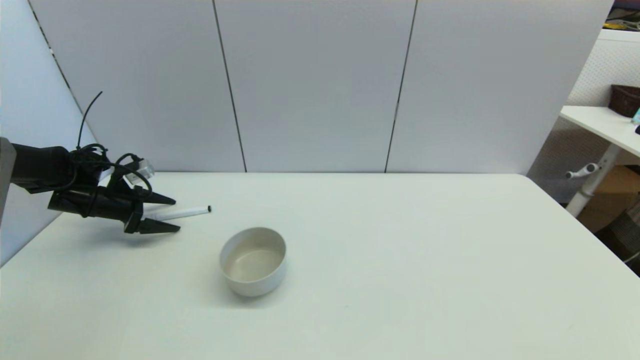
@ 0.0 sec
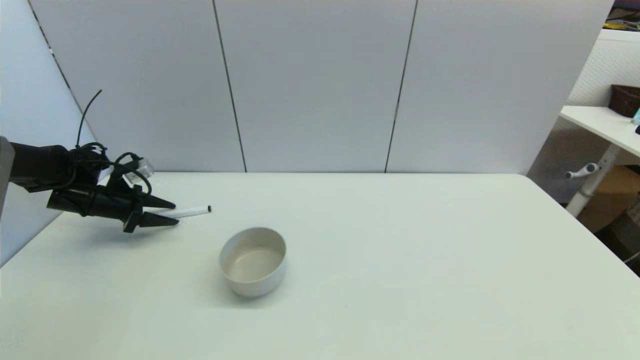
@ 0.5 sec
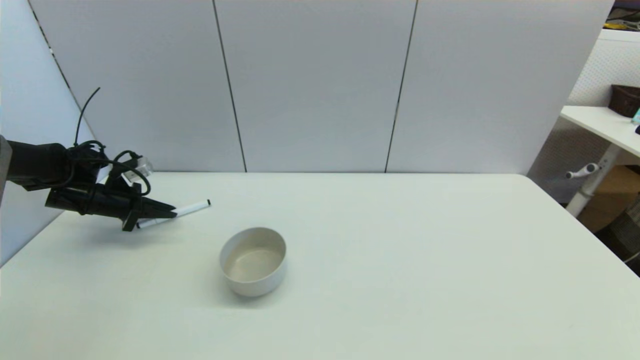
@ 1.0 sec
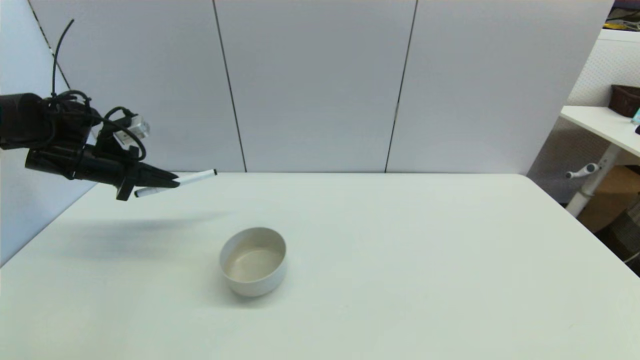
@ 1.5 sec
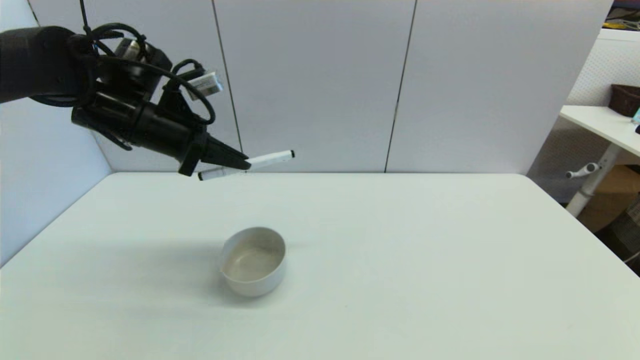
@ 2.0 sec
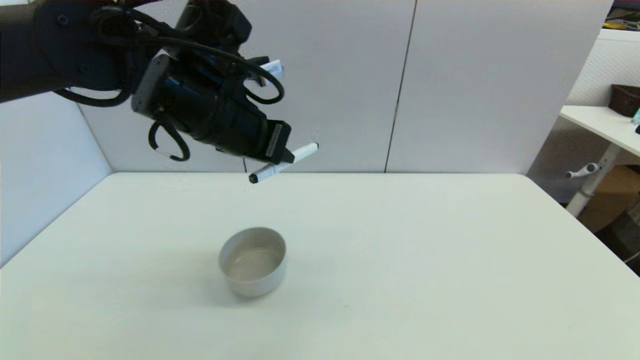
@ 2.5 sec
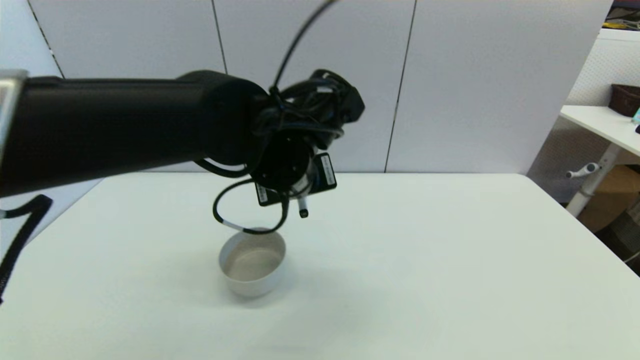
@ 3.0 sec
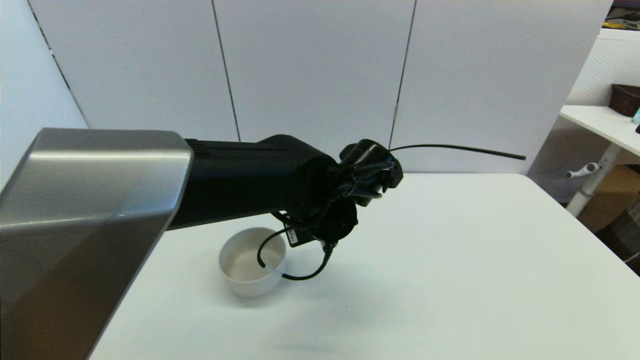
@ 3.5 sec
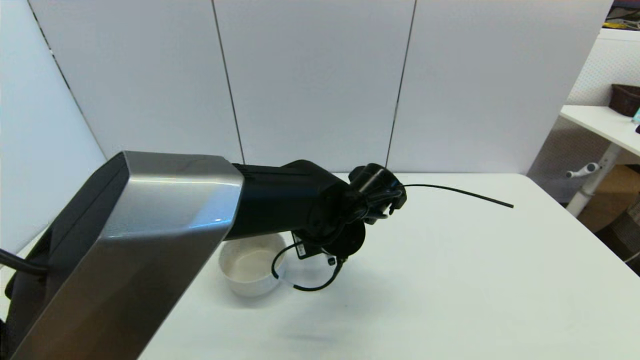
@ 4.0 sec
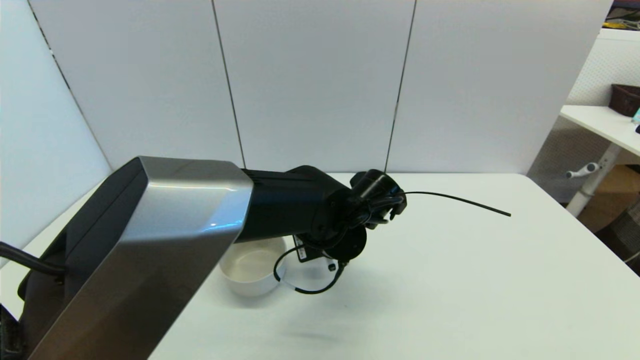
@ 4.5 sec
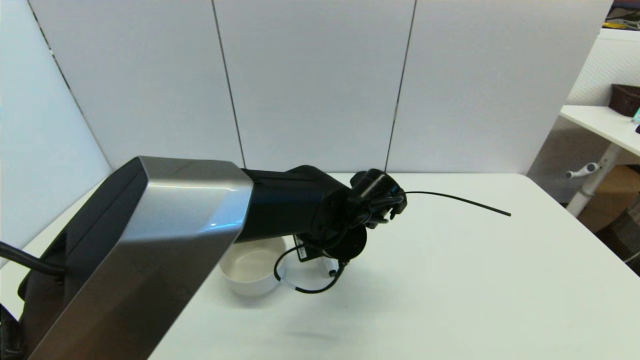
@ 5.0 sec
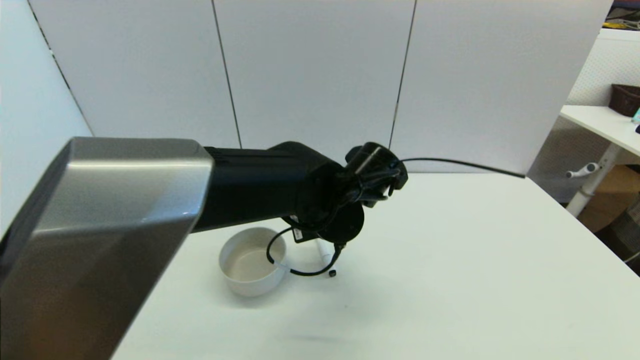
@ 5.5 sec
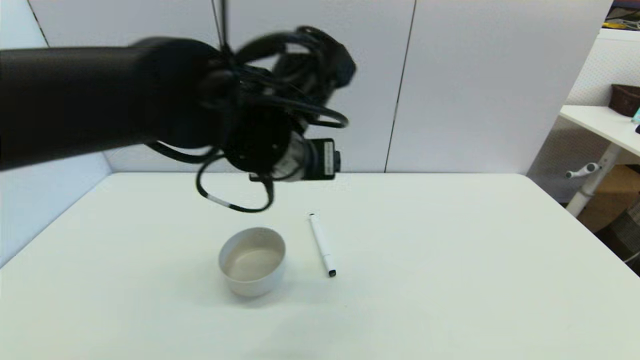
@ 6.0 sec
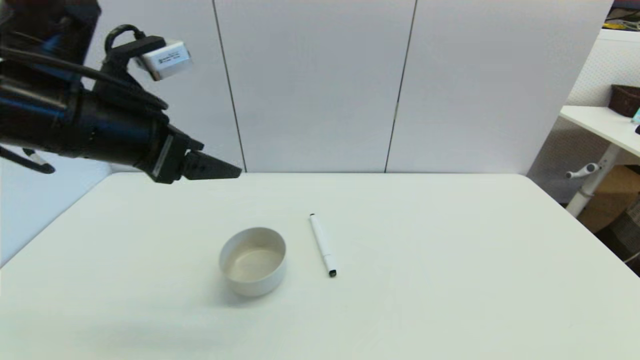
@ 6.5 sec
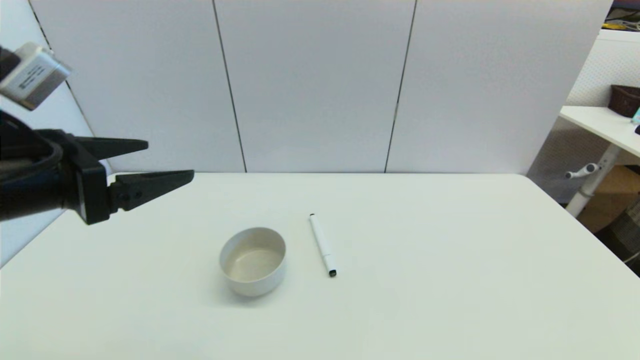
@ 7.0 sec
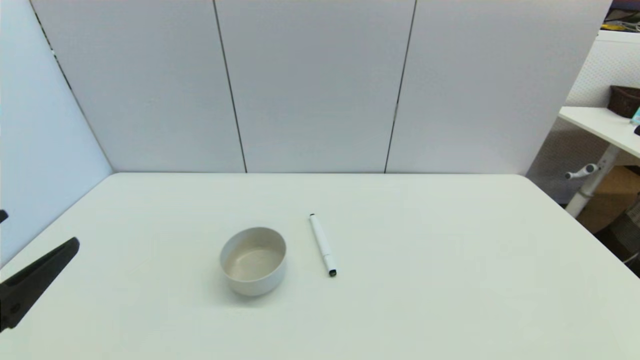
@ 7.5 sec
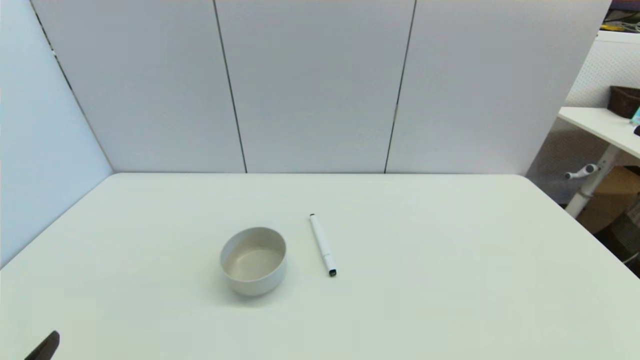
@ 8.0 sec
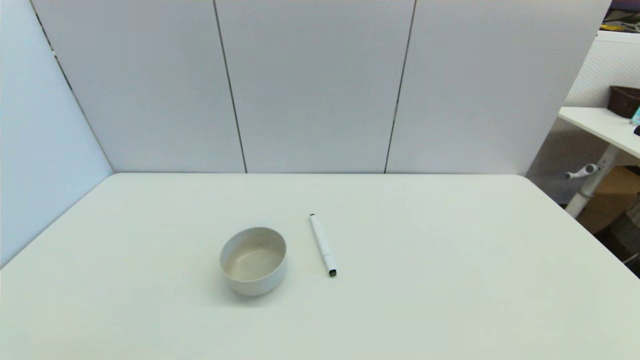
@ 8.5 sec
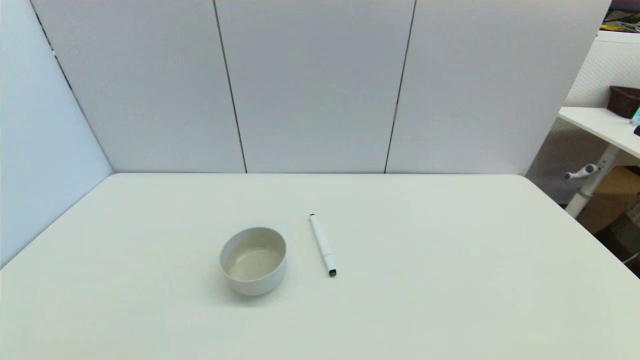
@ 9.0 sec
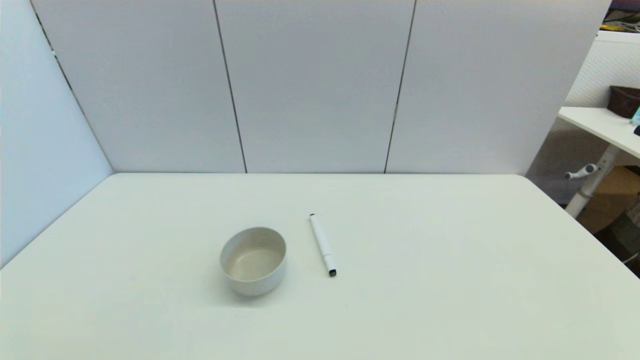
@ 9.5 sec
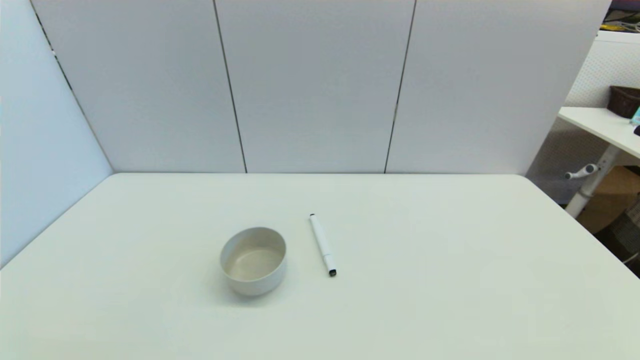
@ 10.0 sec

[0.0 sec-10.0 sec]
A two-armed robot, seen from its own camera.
Task of the whole recording: put the black marker in the designated position.
Step, 1.5 sec to 5.0 sec: Place the Marker pen on the table with left gripper.
0.0 sec to 2.0 sec: The left gripper shifts some 25 cm to the right and upward, and closes.
2.0 sec to 4.0 sec: The left gripper goes roughly 30 cm to the right and downward.
4.0 sec to 6.0 sec: The left gripper goes about 15 cm upward and to the left, and opens up.
6.0 sec to 8.0 sec: The left gripper travels to the left, backward and downward by approximately 40 cm.

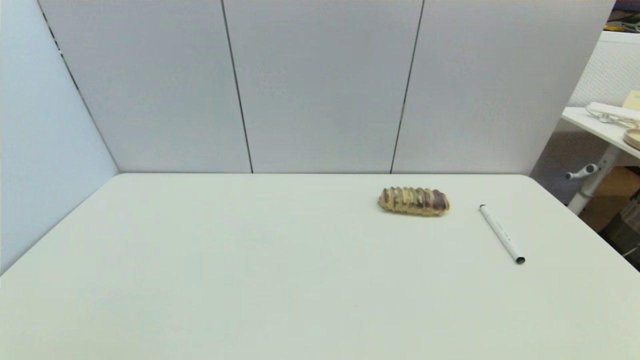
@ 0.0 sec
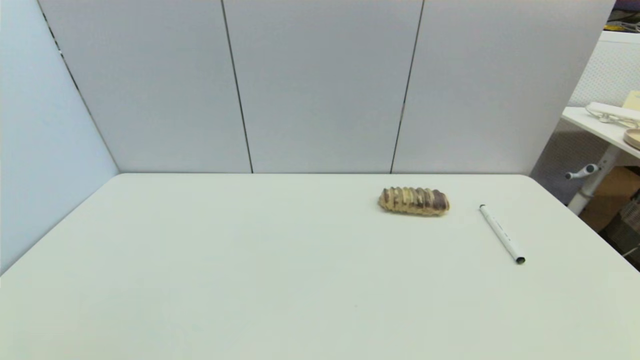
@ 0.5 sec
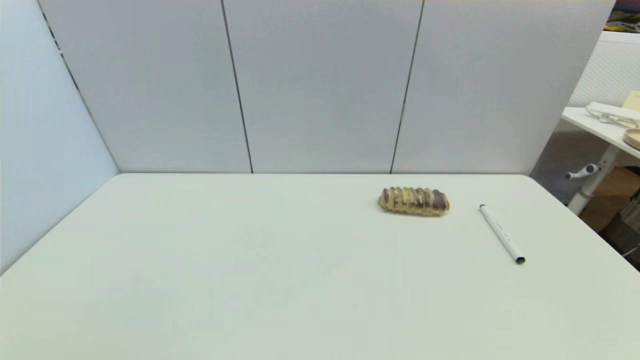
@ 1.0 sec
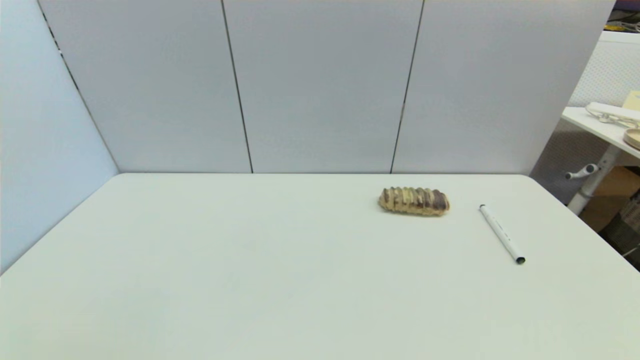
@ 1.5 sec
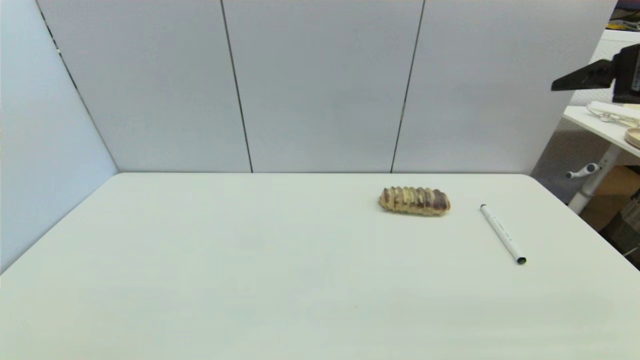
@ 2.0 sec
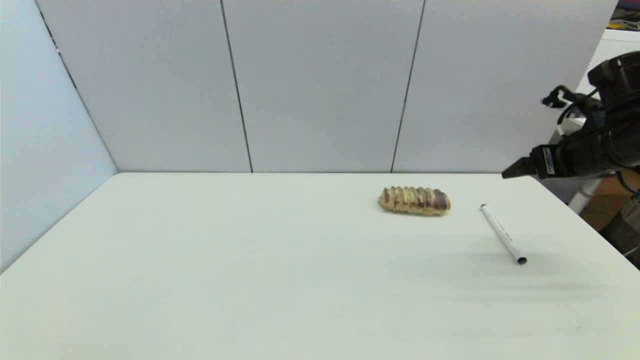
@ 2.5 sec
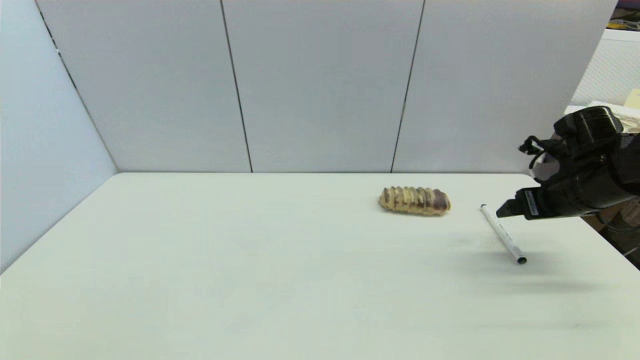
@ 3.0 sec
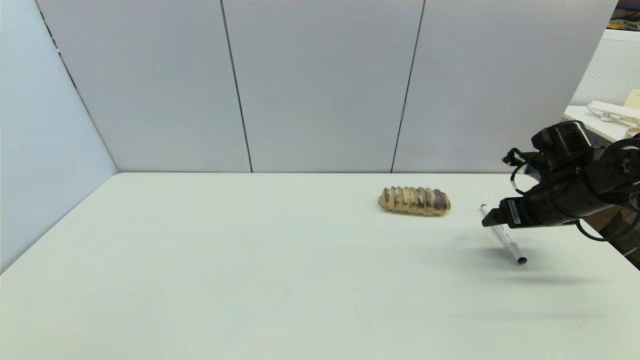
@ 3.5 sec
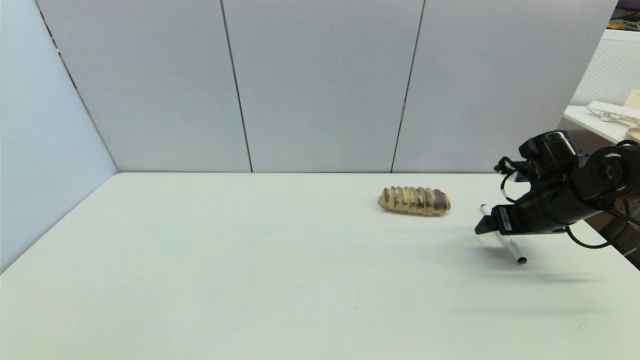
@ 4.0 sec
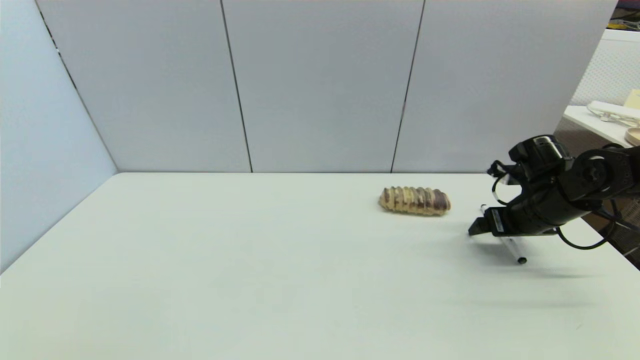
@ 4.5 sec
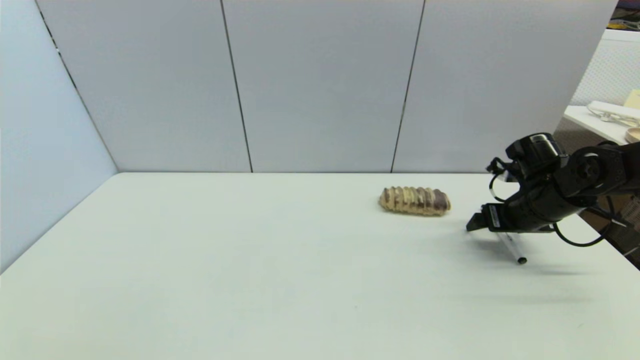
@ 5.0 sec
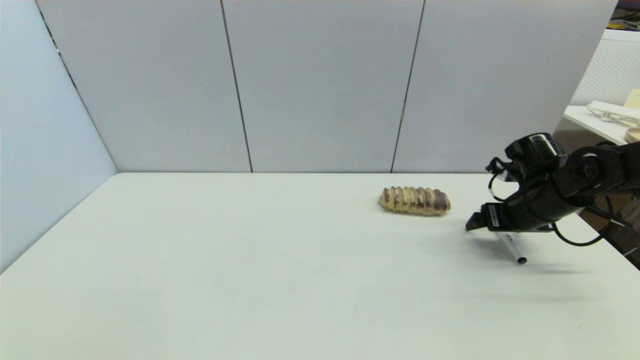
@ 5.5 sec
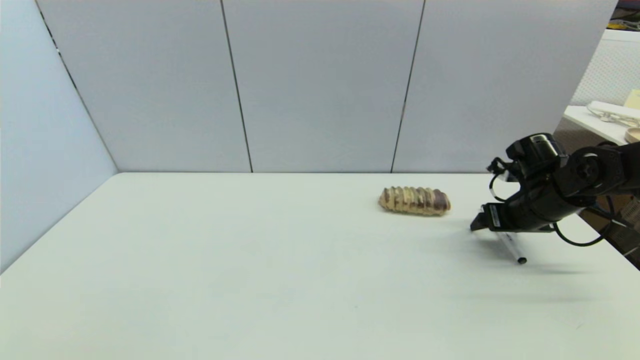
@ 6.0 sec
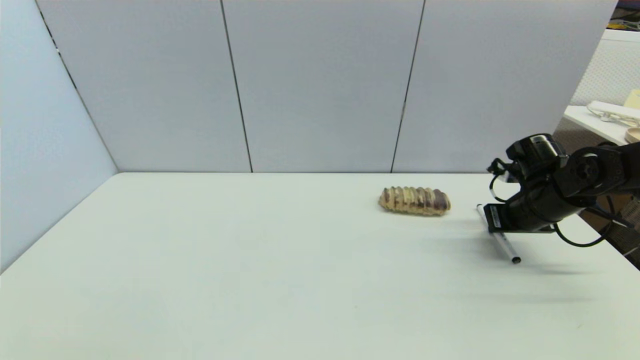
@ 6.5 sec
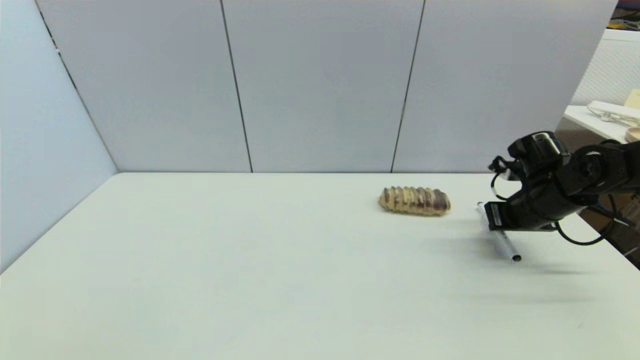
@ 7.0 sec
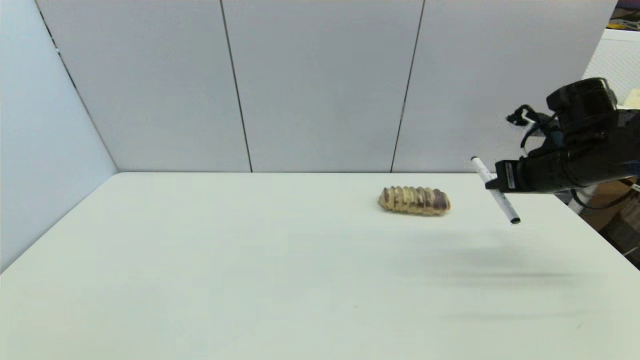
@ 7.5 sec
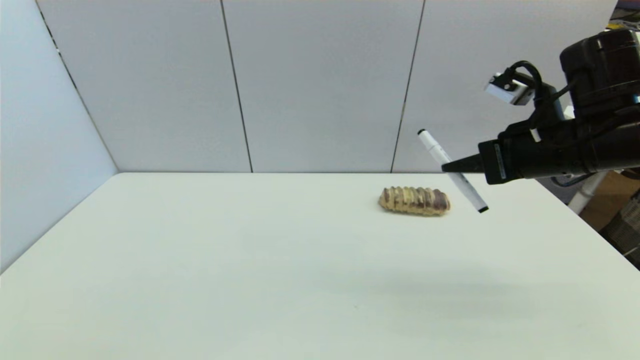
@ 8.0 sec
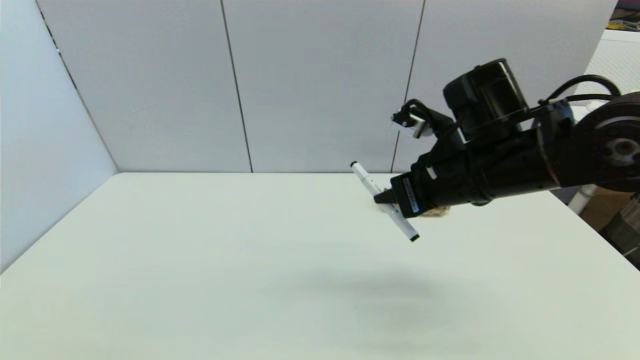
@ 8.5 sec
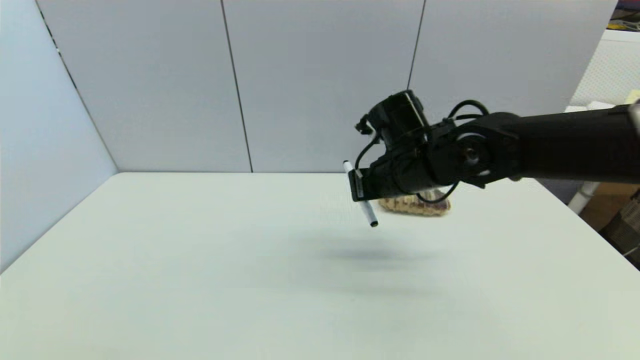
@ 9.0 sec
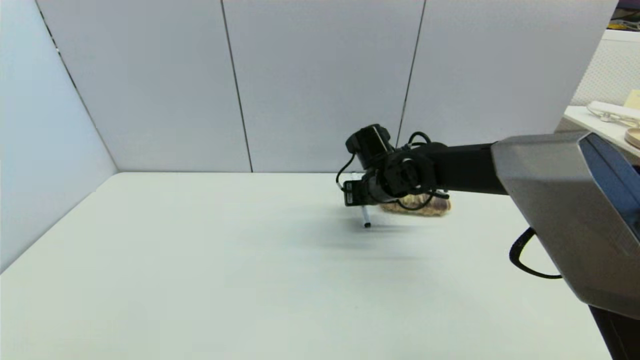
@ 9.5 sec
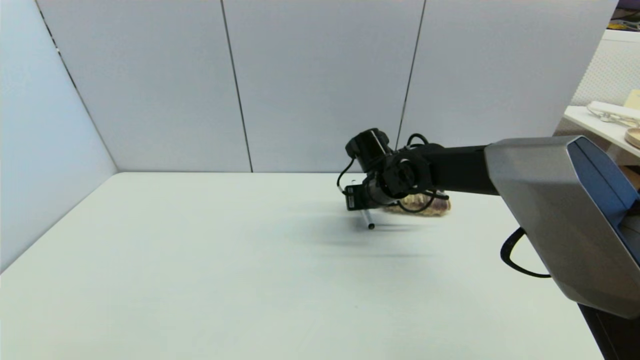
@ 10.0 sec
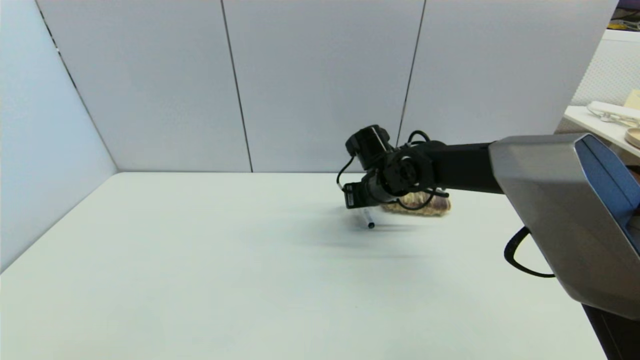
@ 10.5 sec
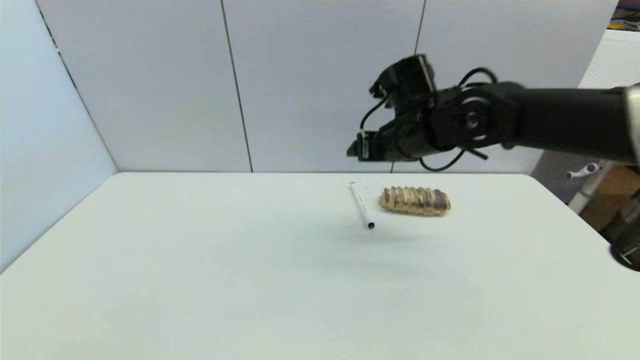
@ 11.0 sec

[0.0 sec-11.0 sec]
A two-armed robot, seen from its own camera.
Task of the whole recording: put the black marker in the designated position.
Step, 2.0 sec to 6.5 sec: Grasp the Marker pen with right gripper.
Step, 7.0 sec to 10.0 sec: Place the Marker pen on the table with right gripper.
0.0 sec to 2.0 sec: The right gripper shifts roughly 40 cm upward and forward.
2.0 sec to 3.5 sec: The right gripper shifts some 20 cm downward and forward.
3.5 sec to 5.5 sec: The grippers make only small movements.
5.5 sec to 7.5 sec: The right gripper is displaced upward by approximately 10 cm, and closes.
7.5 sec to 9.0 sec: The right gripper is displaced to the left by about 20 cm.
9.0 sec to 11.0 sec: The right gripper heads upward, covering about 5 cm, and opens up.
